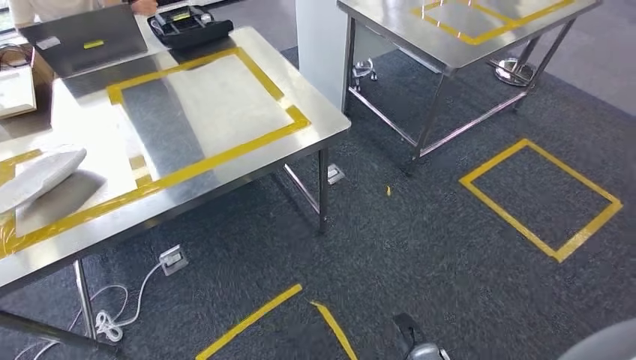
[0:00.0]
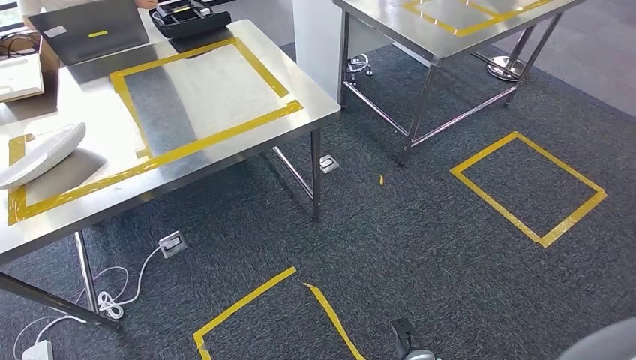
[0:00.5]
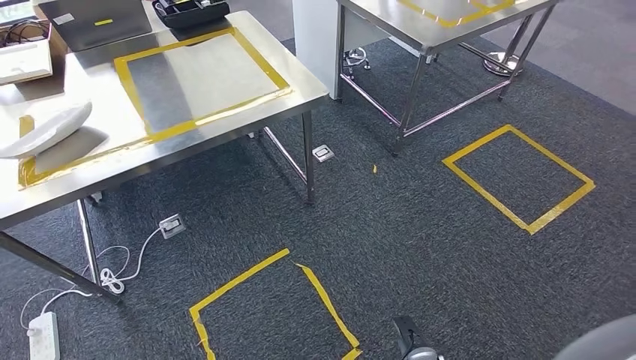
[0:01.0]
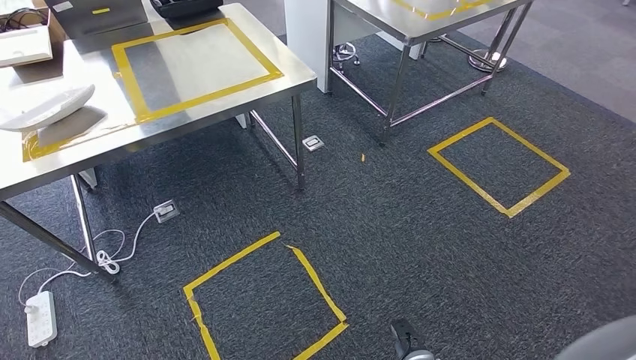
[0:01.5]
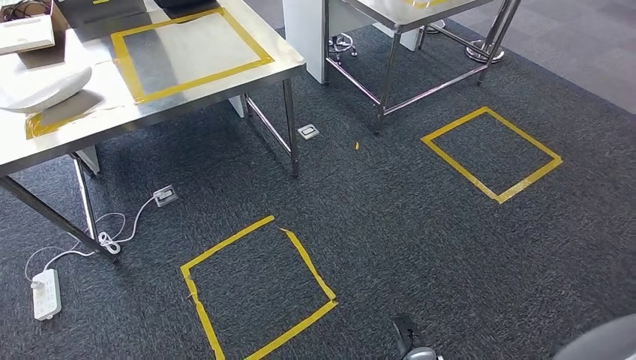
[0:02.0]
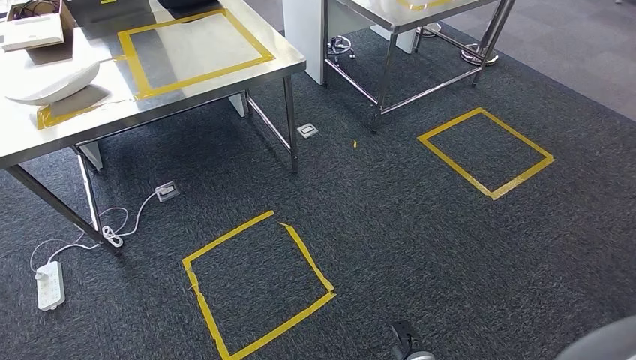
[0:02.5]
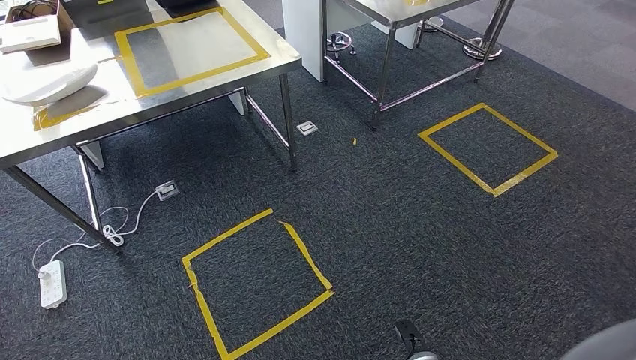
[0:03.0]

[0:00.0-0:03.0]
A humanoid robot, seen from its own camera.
Step, 0:00.0 to 0:03.0: Return to the initial position at the workbench.
